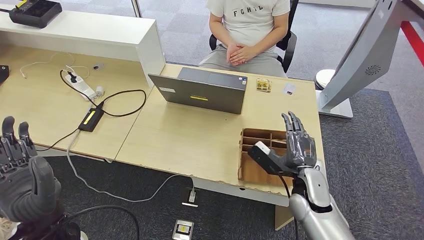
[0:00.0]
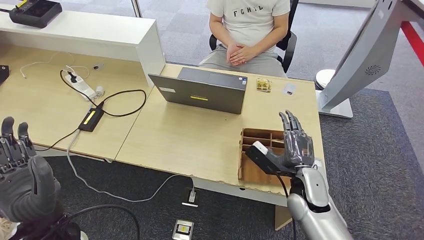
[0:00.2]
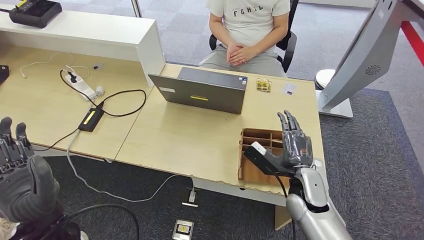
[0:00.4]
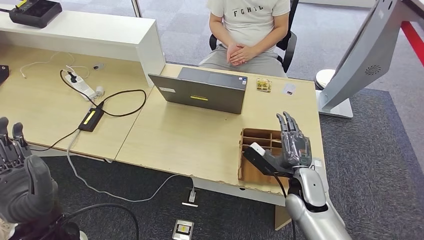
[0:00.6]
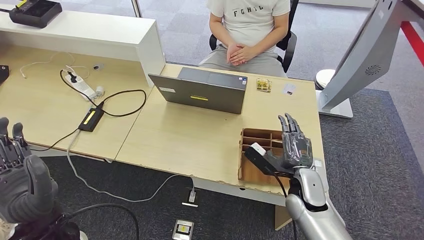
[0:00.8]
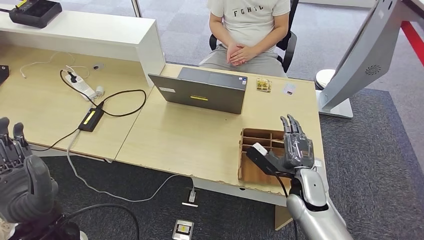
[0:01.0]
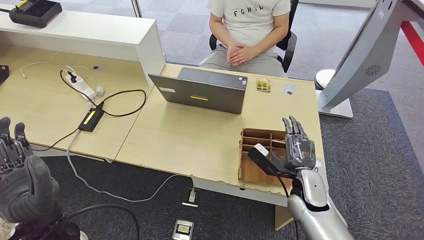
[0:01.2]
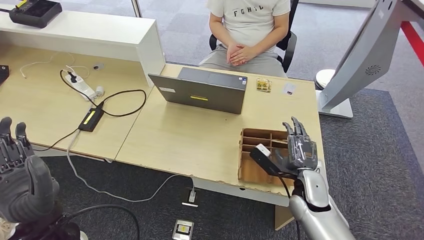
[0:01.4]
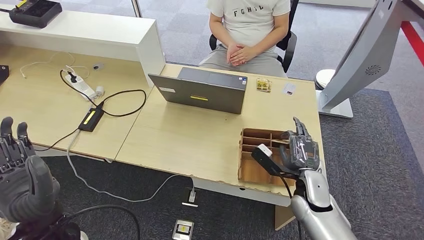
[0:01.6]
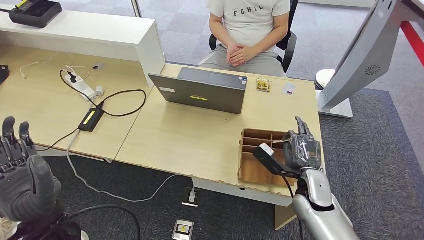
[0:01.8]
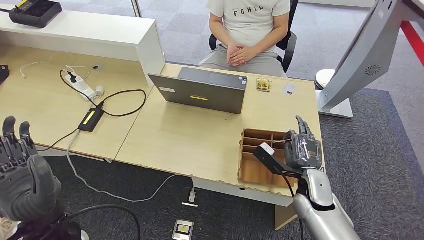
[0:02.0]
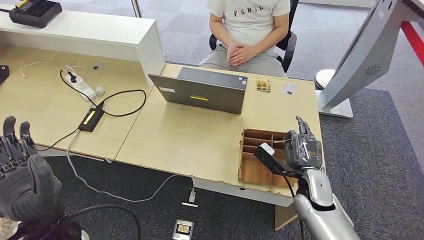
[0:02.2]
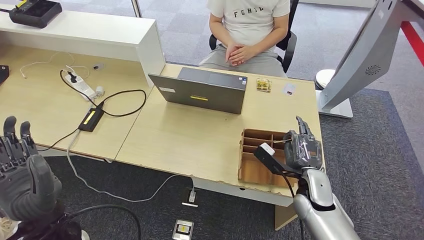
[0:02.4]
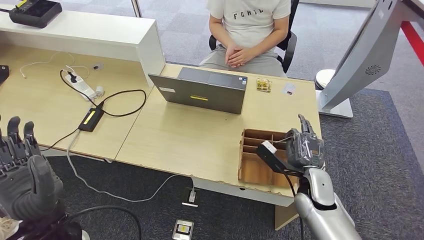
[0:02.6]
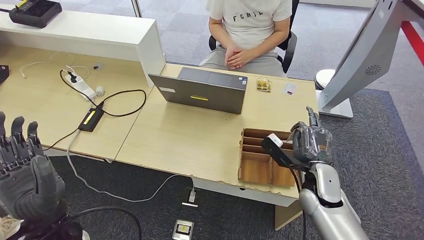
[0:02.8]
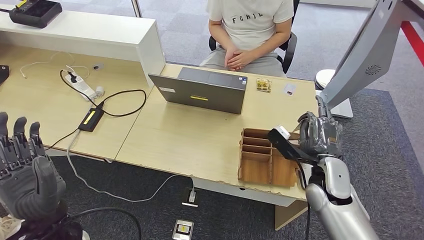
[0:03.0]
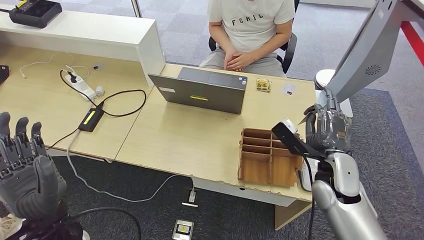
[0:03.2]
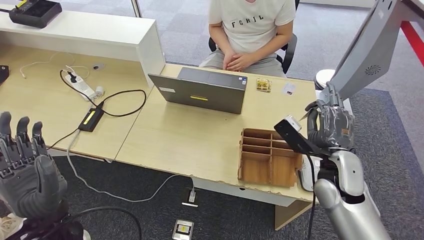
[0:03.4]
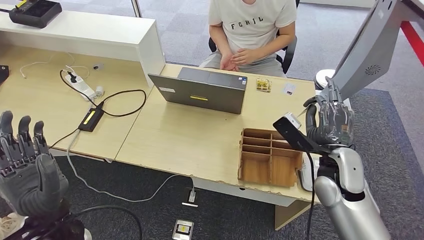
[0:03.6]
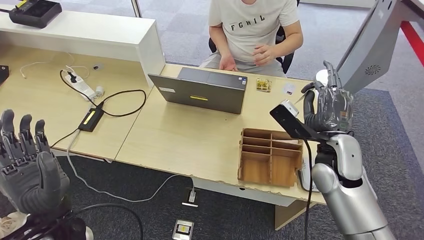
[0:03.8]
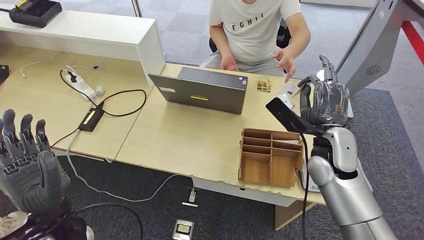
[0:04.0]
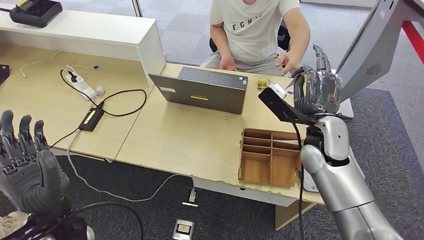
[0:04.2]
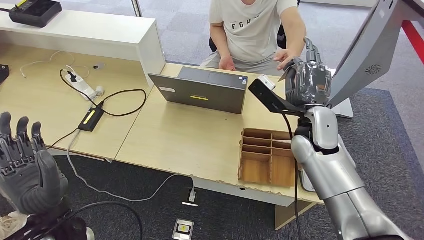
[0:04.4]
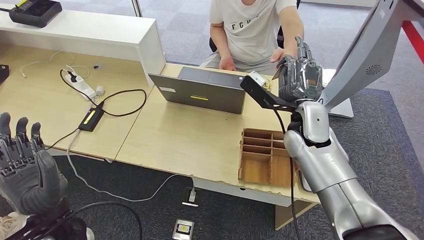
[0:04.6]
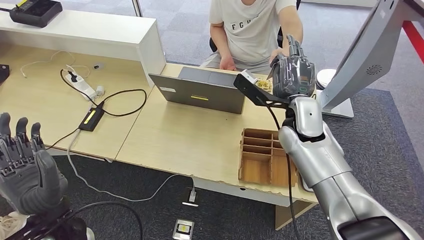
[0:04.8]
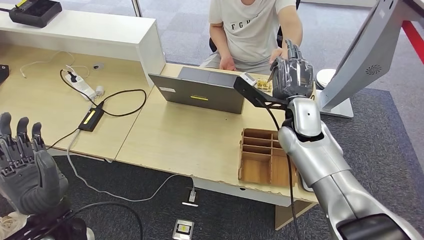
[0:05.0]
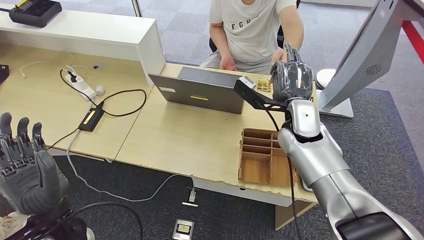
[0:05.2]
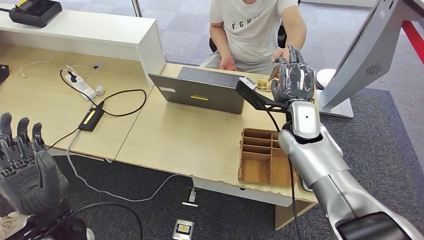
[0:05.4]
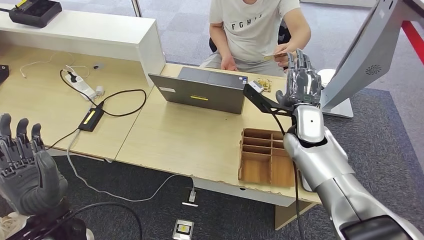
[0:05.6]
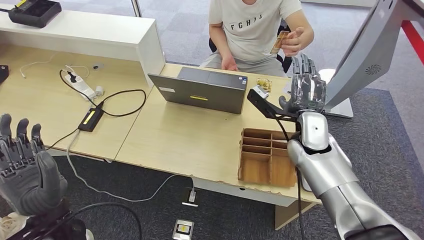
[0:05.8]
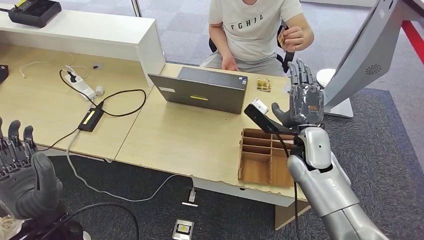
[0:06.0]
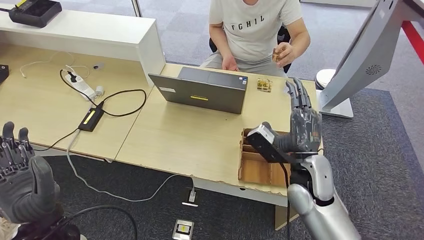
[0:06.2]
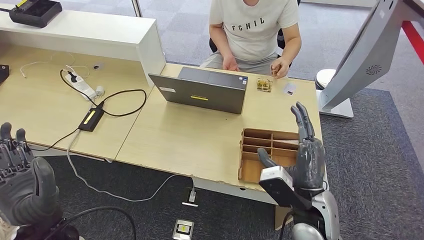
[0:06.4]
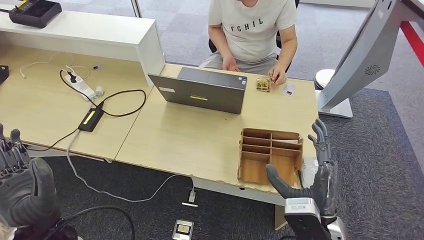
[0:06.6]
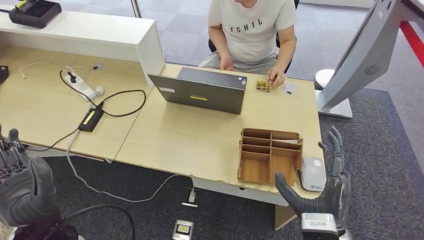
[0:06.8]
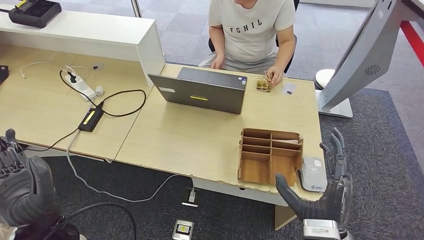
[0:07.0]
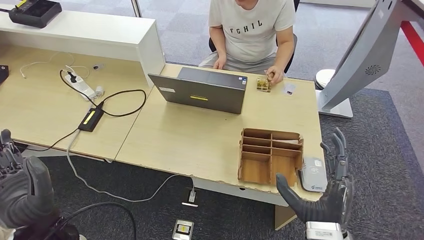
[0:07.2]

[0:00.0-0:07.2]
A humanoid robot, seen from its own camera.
Step, 0:00.0 to 0:03.6: Pick up the room key from the key card box.
Step, 0:03.8 to 0:07.2: Hand the room key to the person.
0:00.0 to 0:02.8: The hands make only small movements.
0:02.8 to 0:04.4: The right hand goes some 15 cm upward, forward and to the left.
0:04.4 to 0:05.8: There are only small adjustments of the hands.
0:05.8 to 0:07.2: The right hand heads backward, covering about 25 cm.

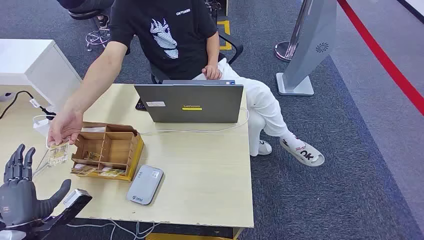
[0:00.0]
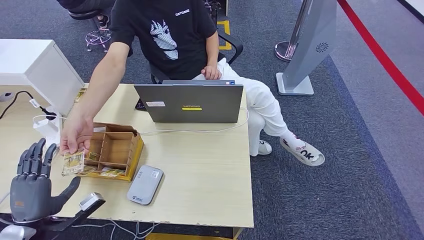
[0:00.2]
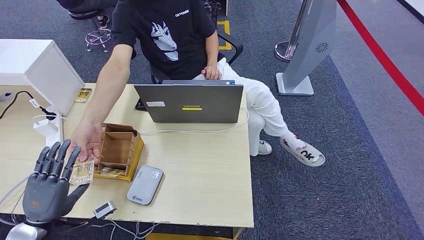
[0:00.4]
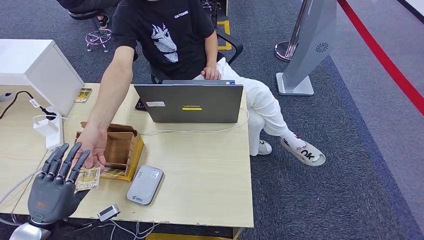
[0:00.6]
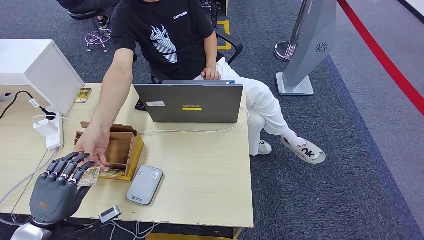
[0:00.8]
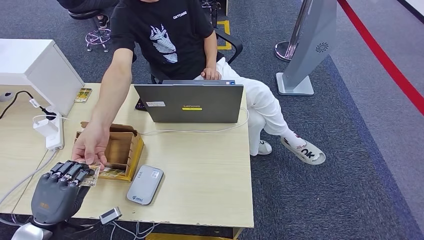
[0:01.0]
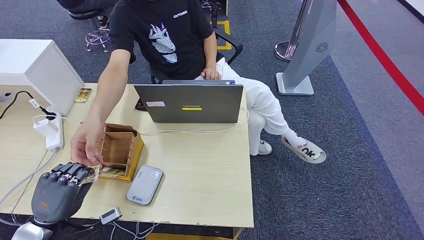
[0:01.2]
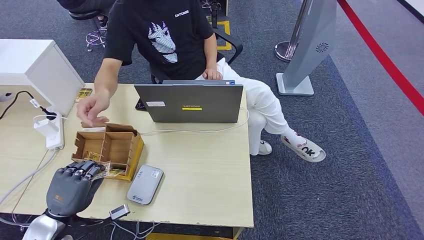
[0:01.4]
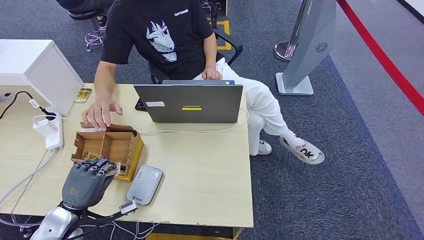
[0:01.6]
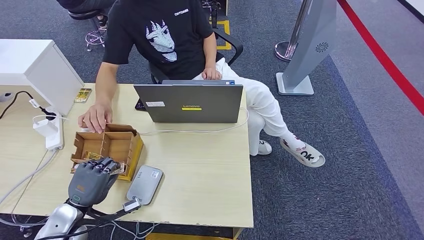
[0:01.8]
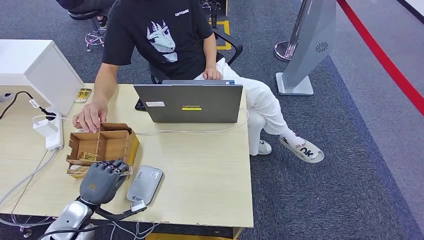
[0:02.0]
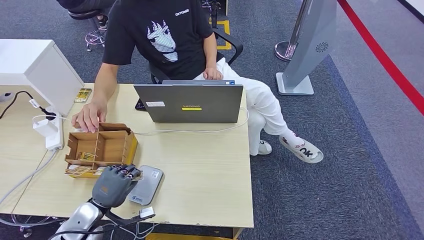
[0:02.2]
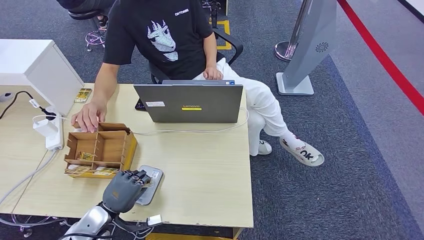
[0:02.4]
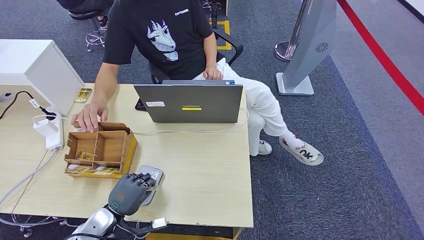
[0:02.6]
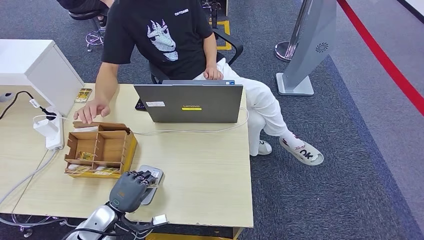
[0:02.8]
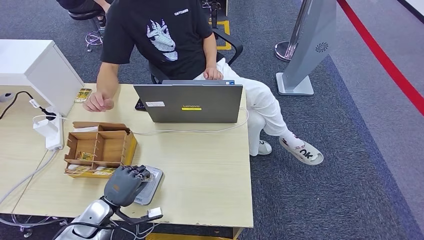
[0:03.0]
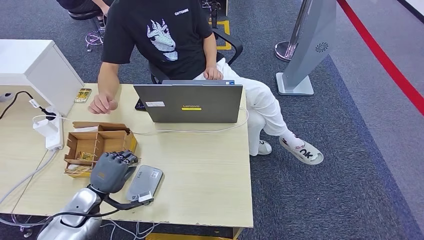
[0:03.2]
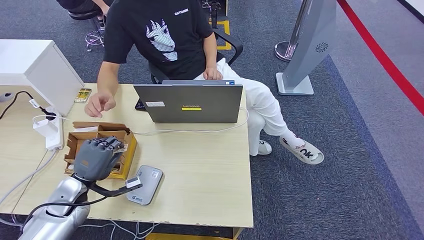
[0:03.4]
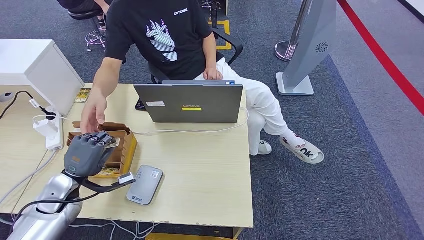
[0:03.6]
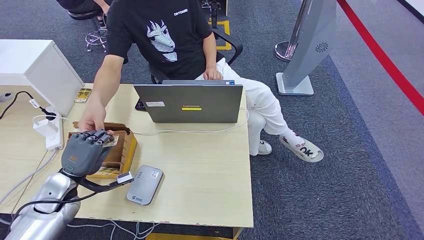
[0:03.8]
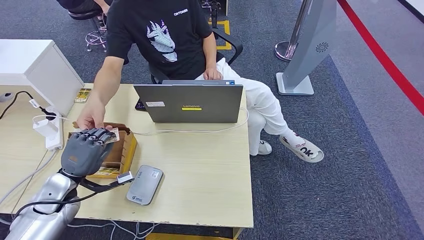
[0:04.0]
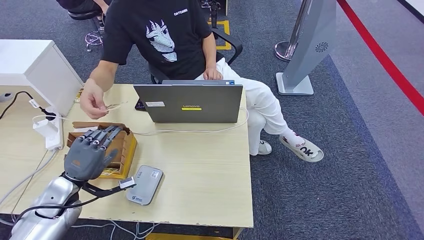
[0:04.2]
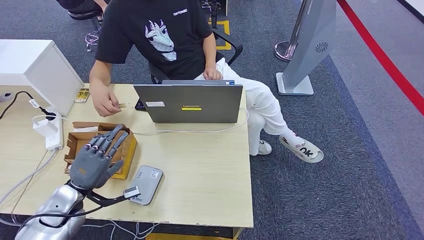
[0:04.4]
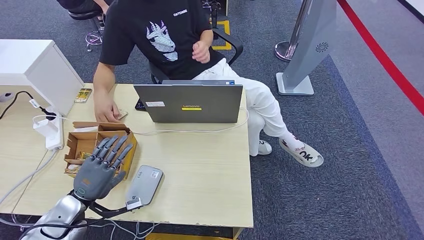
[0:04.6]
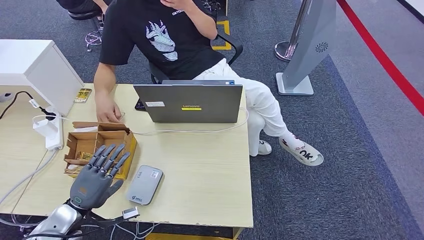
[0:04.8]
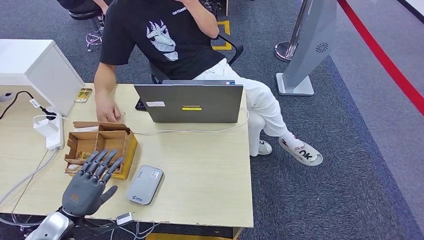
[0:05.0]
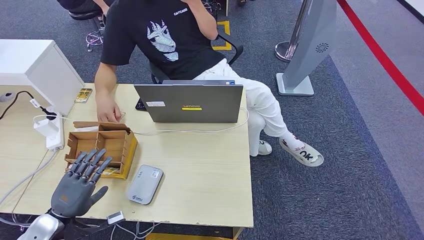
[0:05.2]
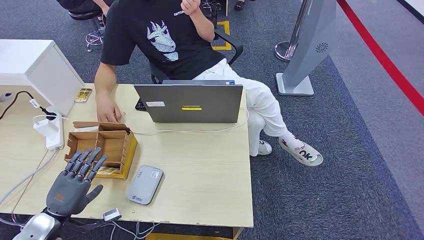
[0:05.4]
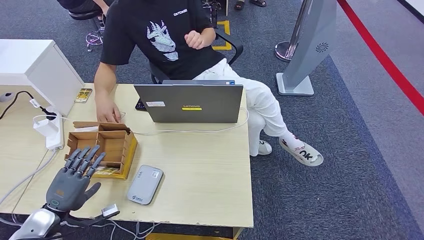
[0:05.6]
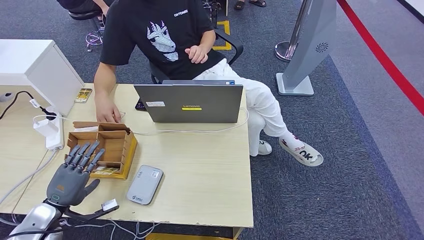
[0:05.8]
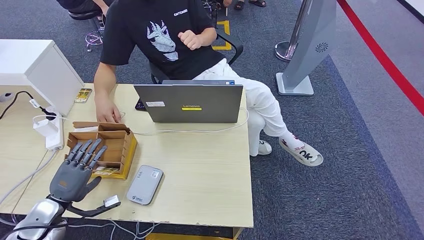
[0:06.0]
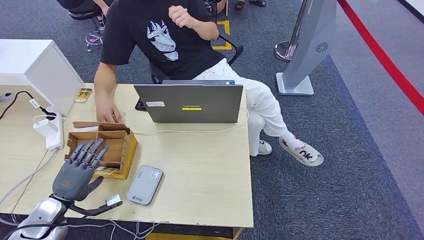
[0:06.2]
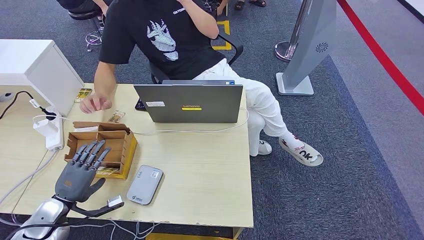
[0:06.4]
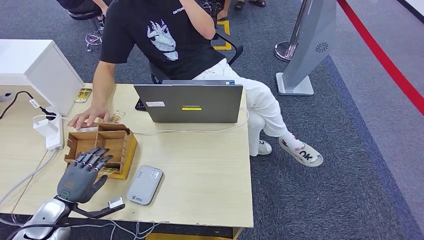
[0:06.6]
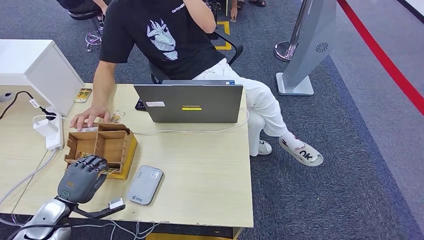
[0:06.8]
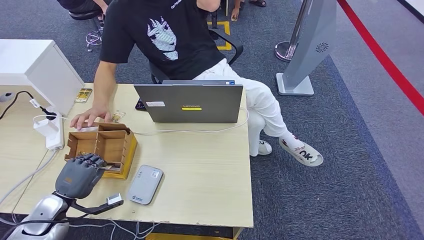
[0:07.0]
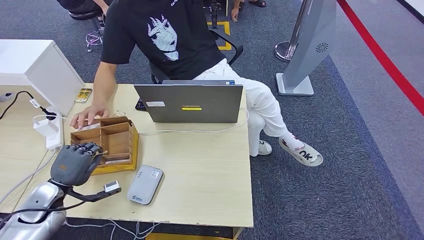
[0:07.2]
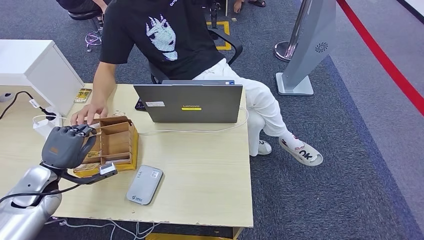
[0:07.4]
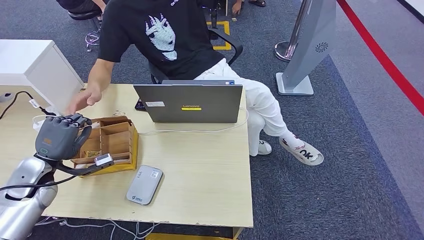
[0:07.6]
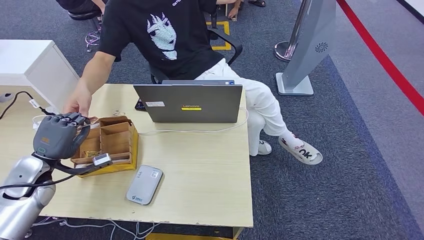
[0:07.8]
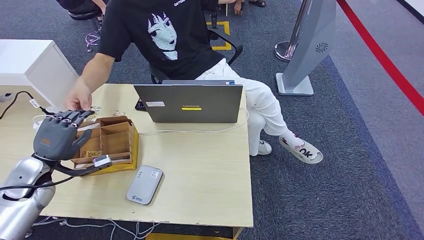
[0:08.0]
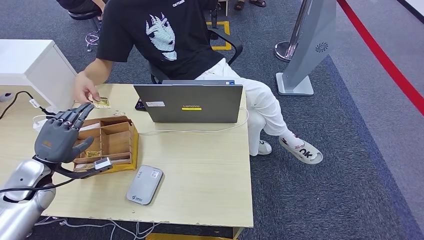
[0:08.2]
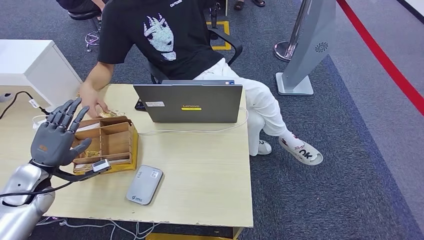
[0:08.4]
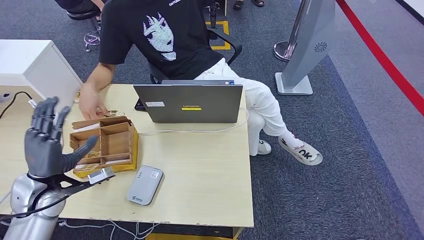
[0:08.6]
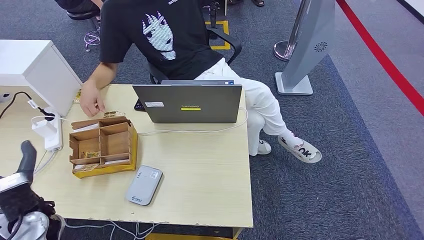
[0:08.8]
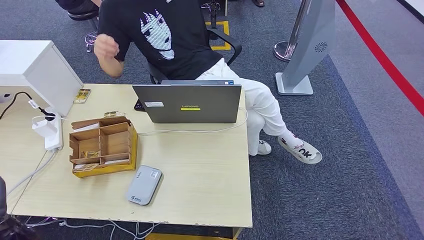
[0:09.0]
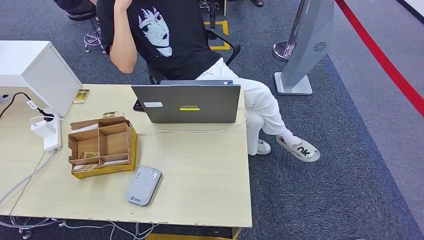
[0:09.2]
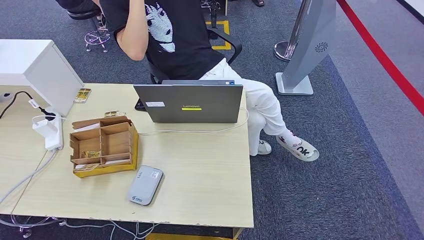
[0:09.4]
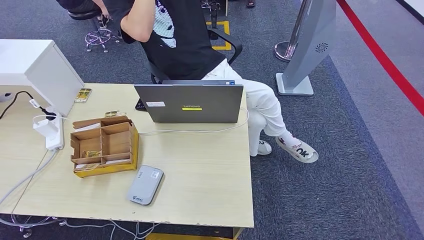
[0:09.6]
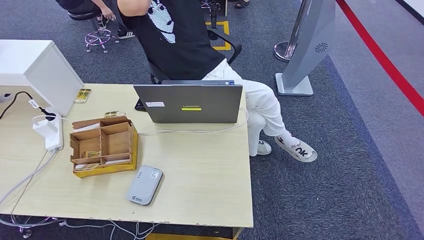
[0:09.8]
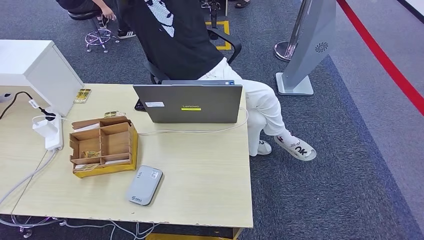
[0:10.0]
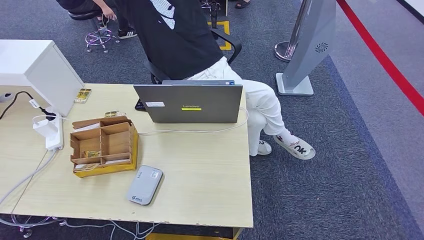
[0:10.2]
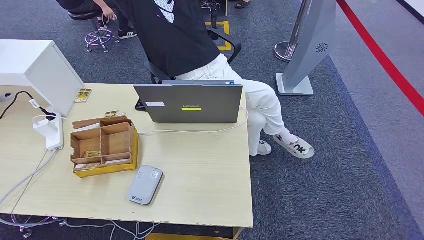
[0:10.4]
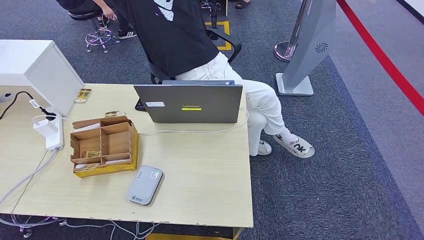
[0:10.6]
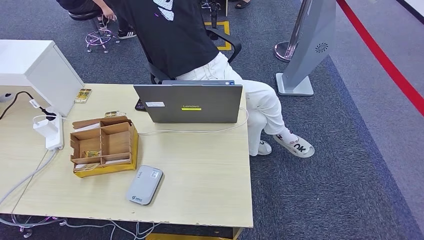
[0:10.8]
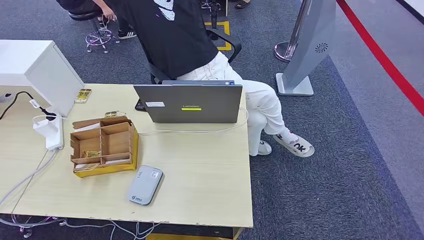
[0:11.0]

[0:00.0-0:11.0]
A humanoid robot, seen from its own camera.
Step, 0:00.0 to 0:01.2: Take the ID card from the person's hand.
Step, 0:01.4 to 0:03.4: Place the ID card on the card reader.
Step, 0:03.6 to 0:05.4: Hand the ID card to the person.
Step, 0:05.6 to 0:07.0: Pick up the room key from the key card box.
Step, 0:07.2 to 0:10.8: Hand the room key to the person.
0:01.6 to 0:03.2: The left hand heads forward, covering about 5 cm.
0:03.2 to 0:04.8: The left hand ends up about 5 cm from where it was.
0:04.8 to 0:06.2: The left hand heads to the left, covering roughly 5 cm.
0:06.2 to 0:07.8: The left hand travels upward and forward by roughly 10 cm.
0:07.8 to 0:09.4: The left hand shifts roughly 40 cm backward and downward.
0:09.4 to 0:11.0: The left hand is displaced to the right by some 20 cm.
